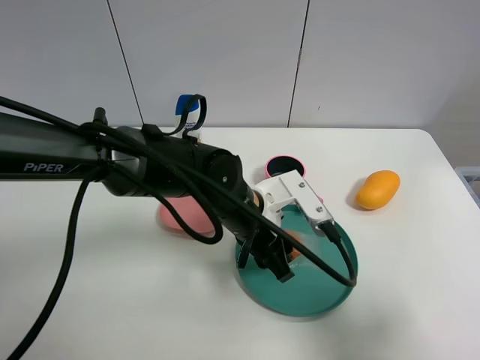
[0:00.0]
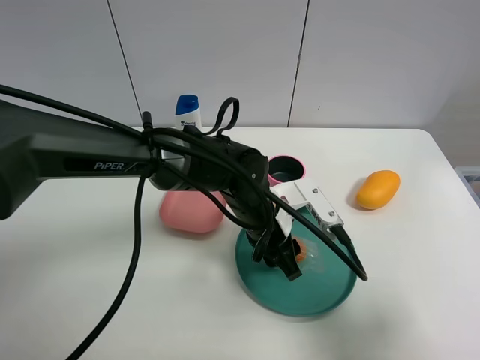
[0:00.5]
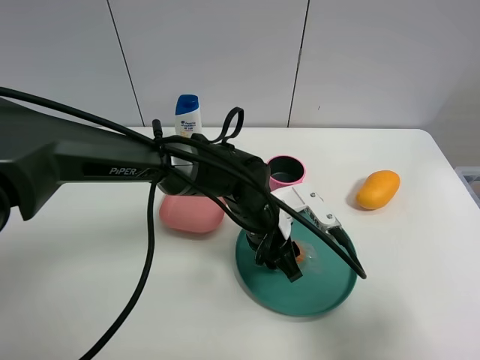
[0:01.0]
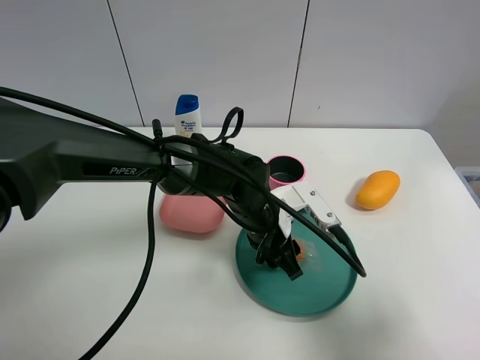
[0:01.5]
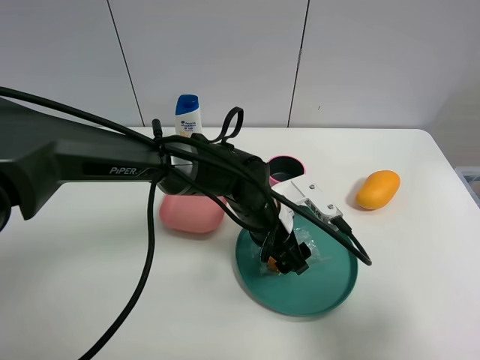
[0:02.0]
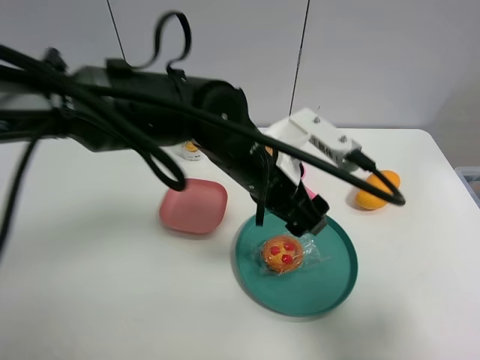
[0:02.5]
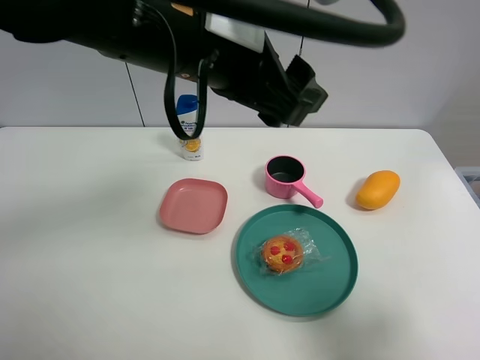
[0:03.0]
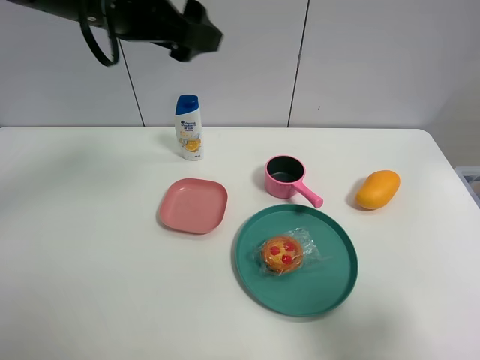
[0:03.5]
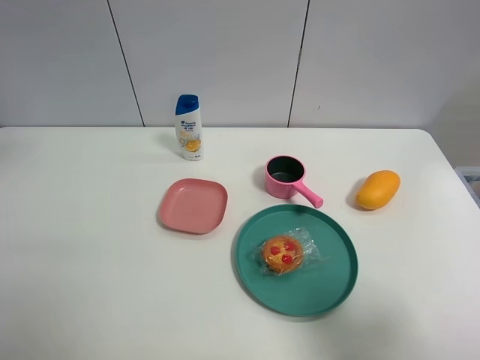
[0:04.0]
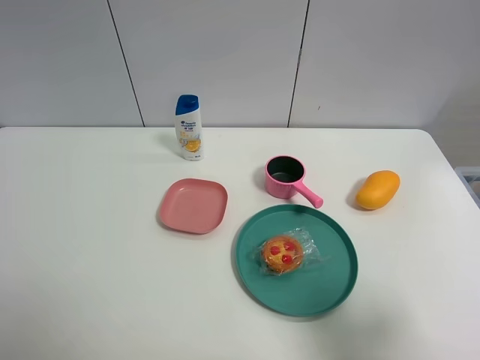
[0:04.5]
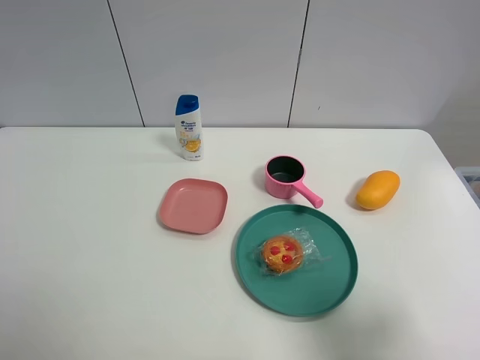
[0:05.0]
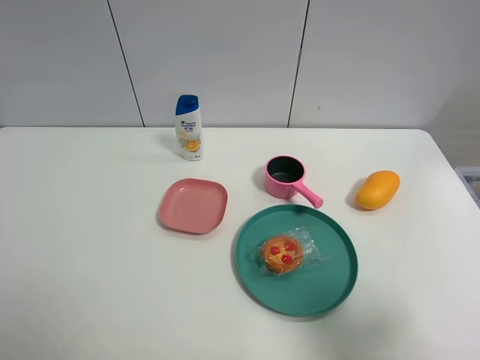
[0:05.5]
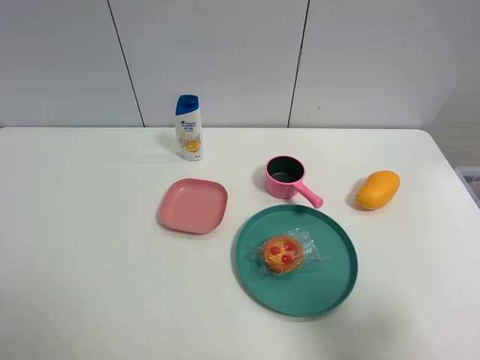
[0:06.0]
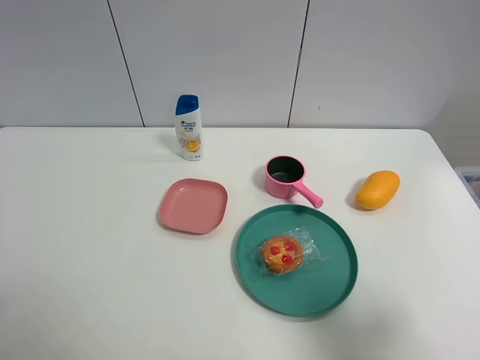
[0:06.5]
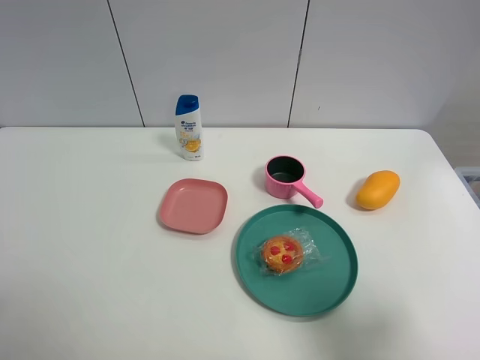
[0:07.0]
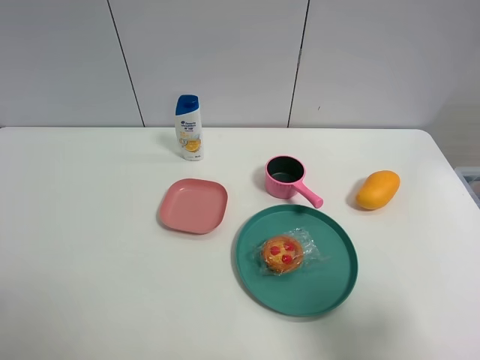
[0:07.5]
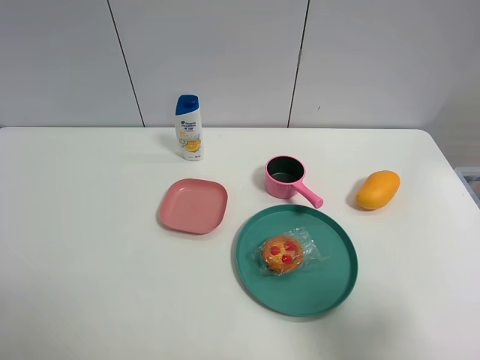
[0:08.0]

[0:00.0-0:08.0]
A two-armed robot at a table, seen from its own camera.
Task of the whole recording: the gripper move the object.
Step, 0:00.0 to 0:02.0: Place the egg tart into the green plate with the left gripper.
0:00.0 to 0:02.0: The left gripper opens up.
0:02.0 to 0:04.0: The left gripper goes approximately 50 cm to the left and upward.
0:06.0 to 0:08.0: Neither gripper changes place.
